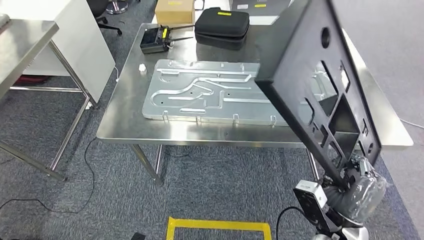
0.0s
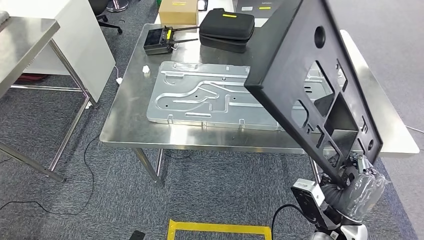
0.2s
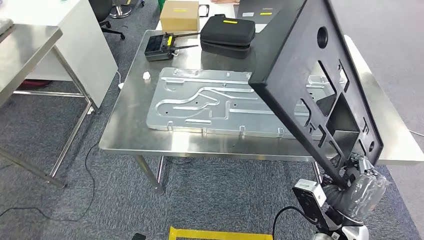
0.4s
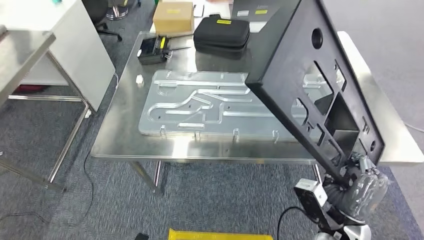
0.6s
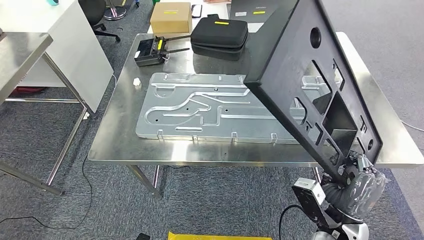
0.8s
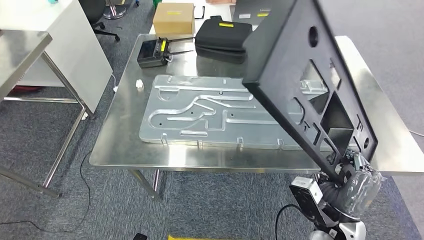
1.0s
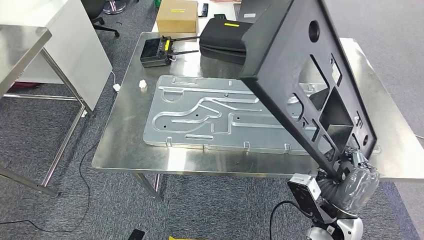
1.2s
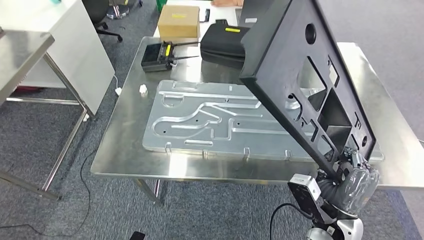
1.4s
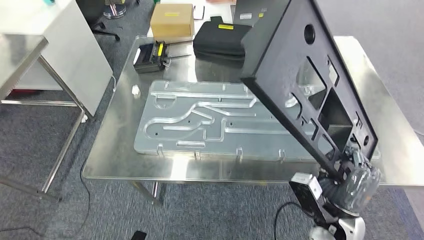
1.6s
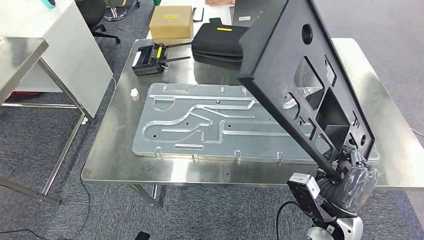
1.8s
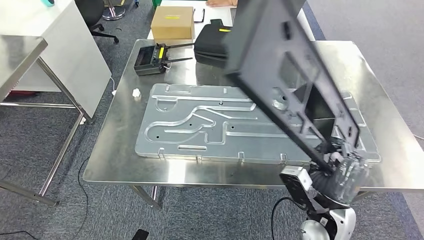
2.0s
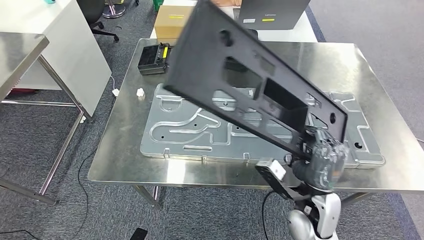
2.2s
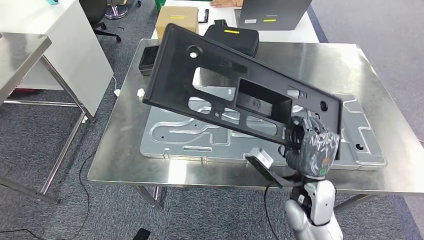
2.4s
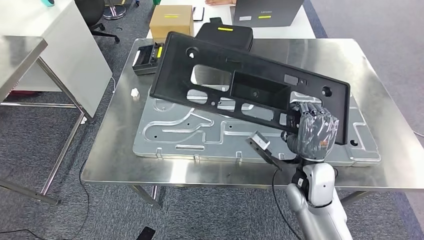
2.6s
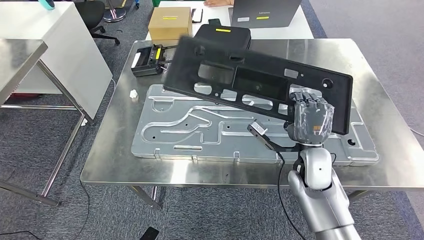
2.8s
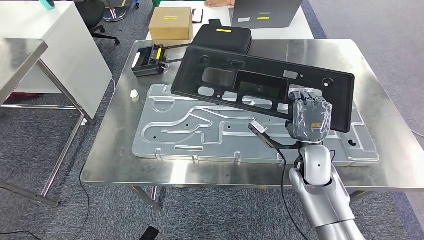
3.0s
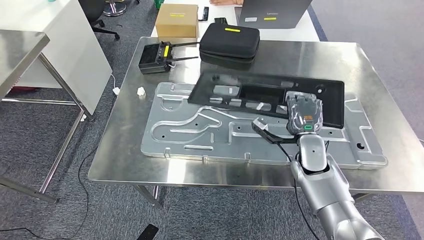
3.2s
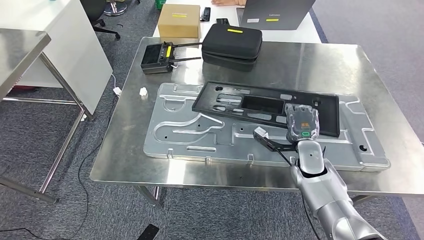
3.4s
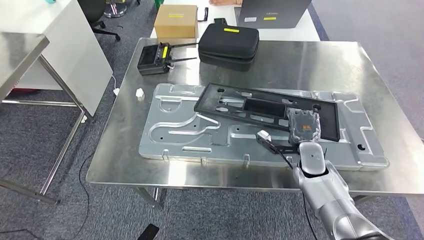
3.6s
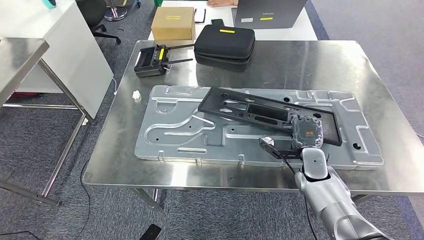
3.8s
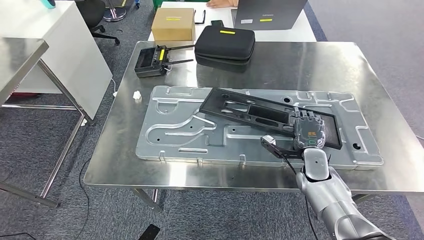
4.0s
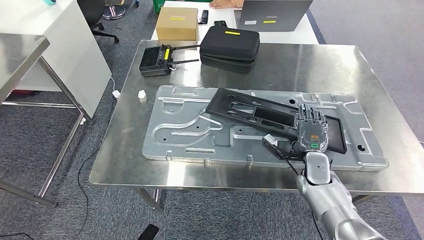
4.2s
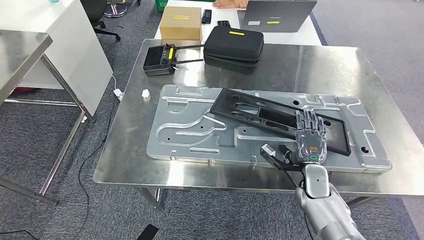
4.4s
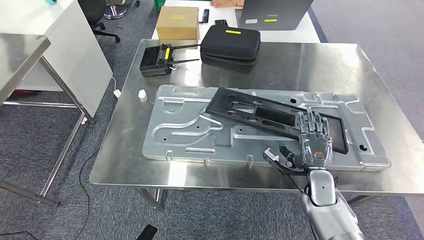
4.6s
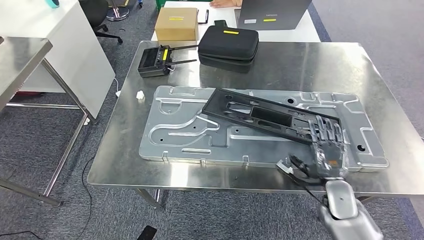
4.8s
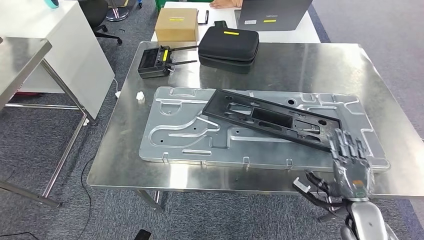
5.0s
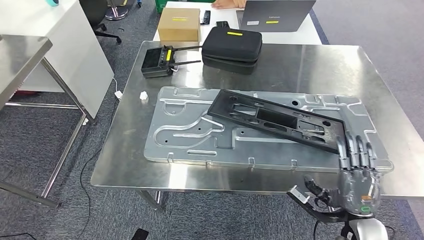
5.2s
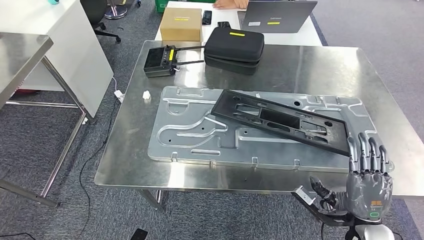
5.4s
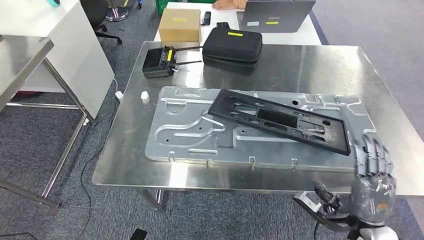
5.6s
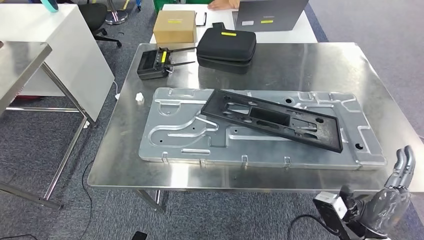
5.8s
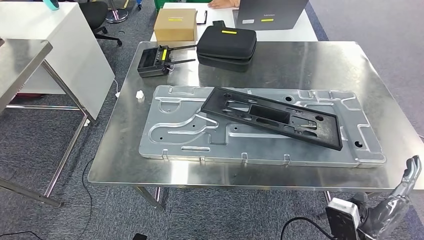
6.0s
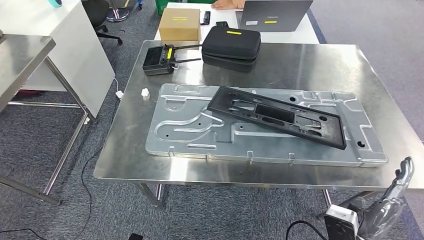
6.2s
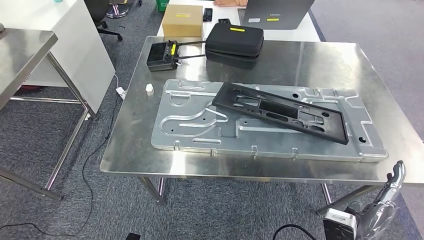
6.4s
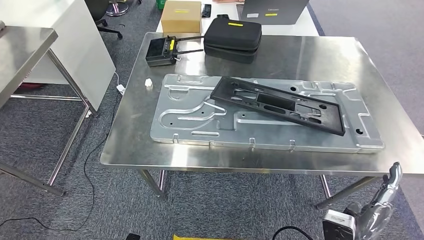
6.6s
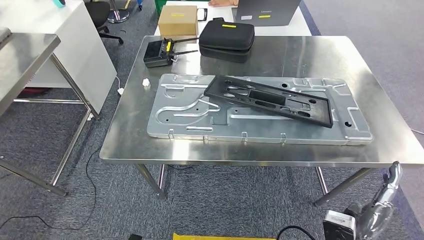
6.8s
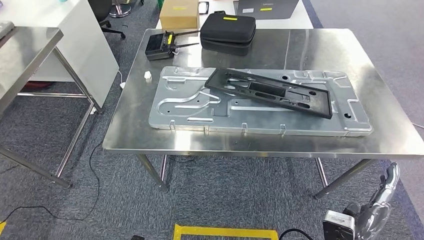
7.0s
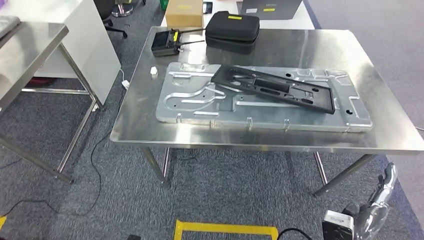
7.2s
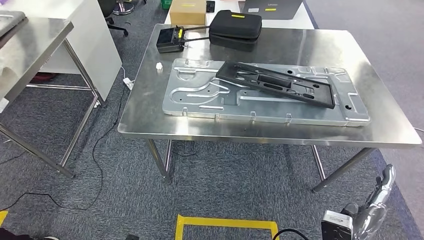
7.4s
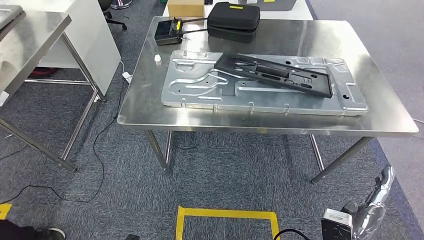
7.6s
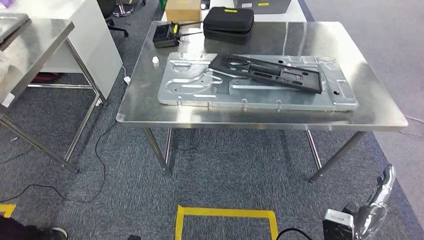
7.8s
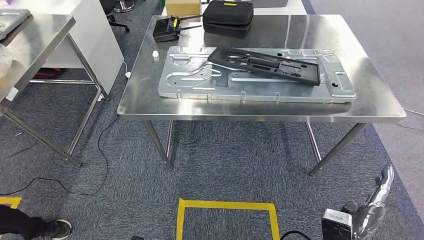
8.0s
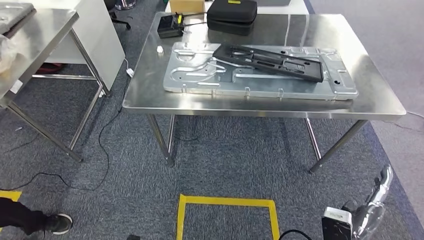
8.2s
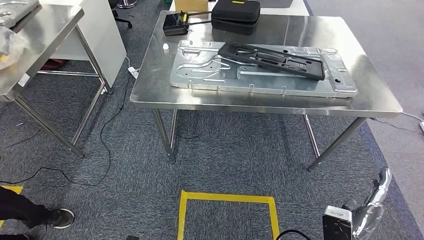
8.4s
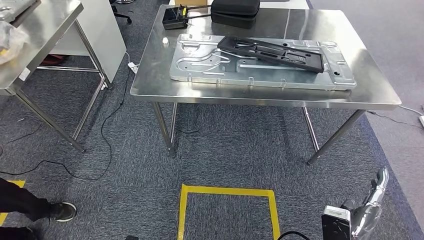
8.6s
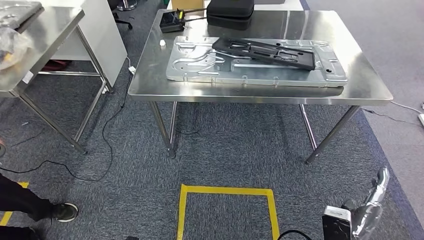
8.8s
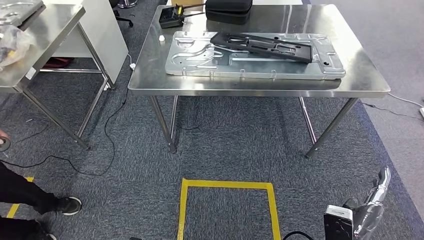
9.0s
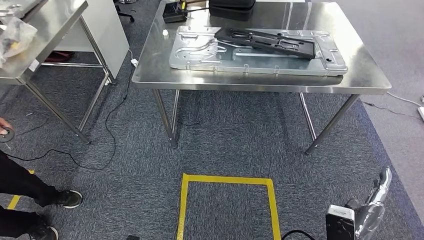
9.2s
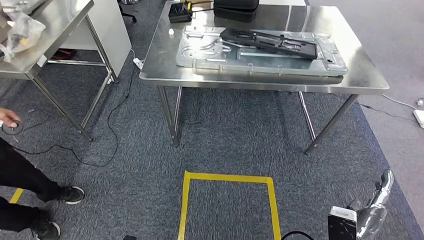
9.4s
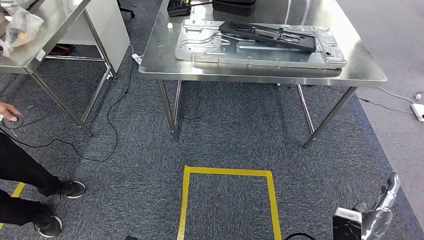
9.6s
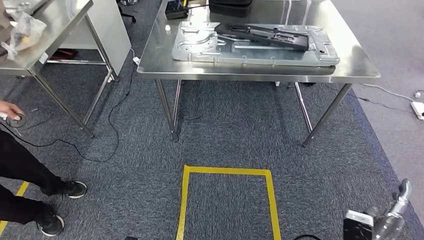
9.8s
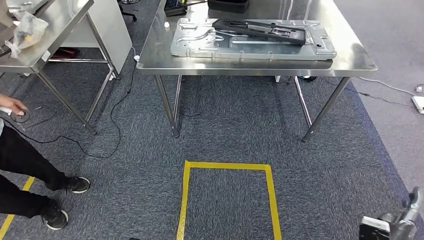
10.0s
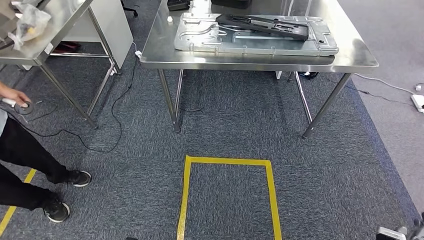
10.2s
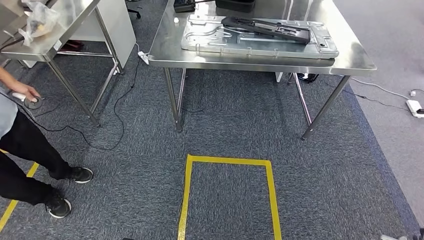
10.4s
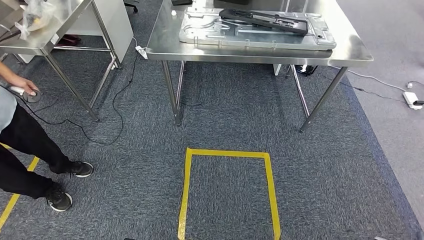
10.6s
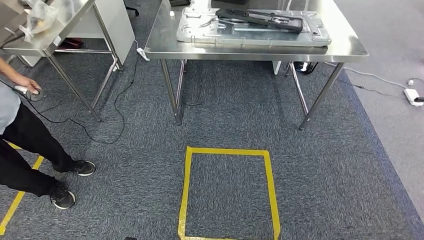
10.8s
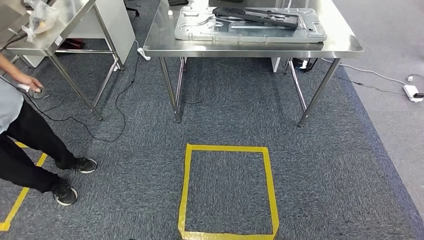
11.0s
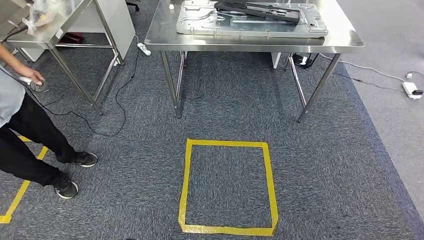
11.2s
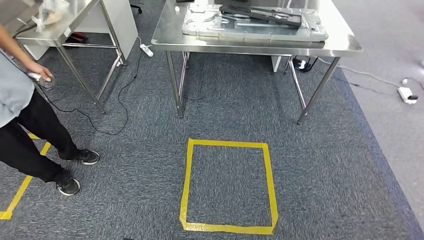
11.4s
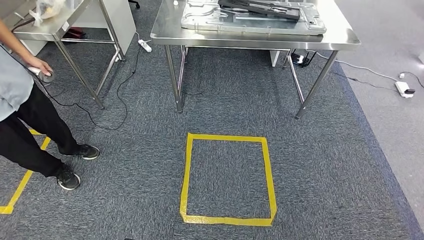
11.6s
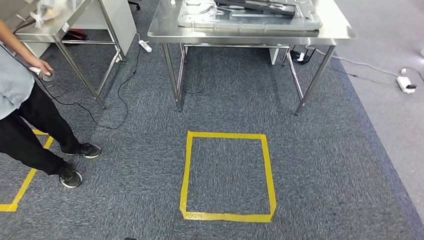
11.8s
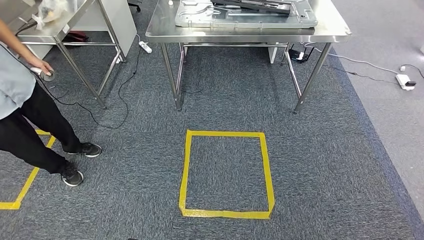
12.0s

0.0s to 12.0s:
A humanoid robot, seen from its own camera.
Step, 1.6s to 7.4s: Insert the large material into the corresponding slot on the workbench.

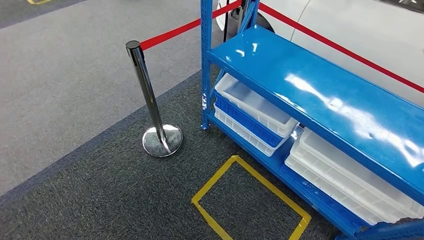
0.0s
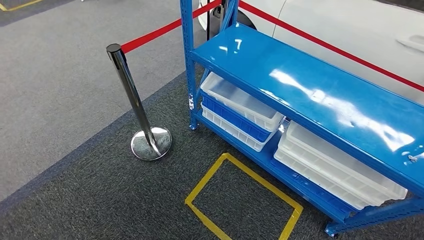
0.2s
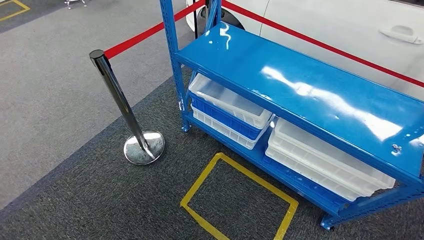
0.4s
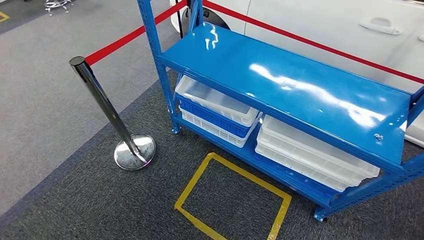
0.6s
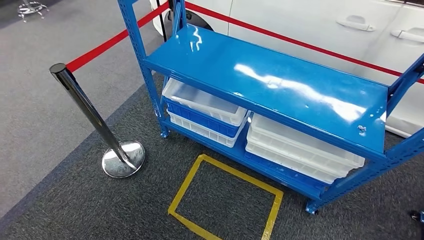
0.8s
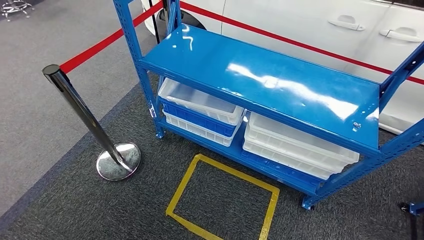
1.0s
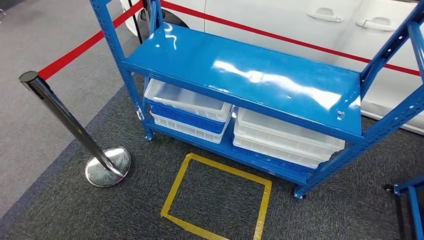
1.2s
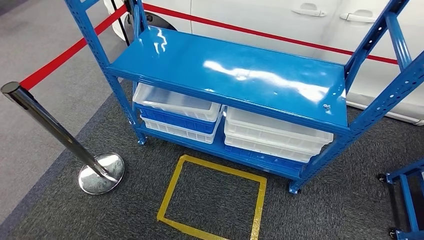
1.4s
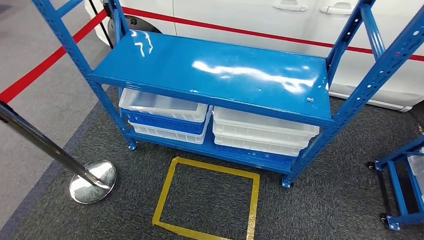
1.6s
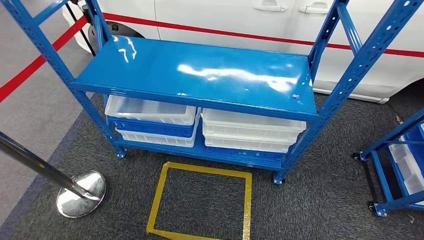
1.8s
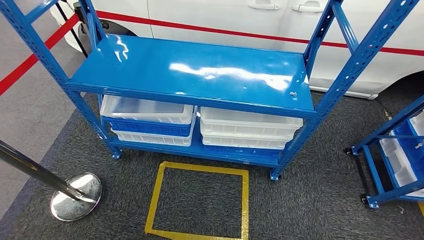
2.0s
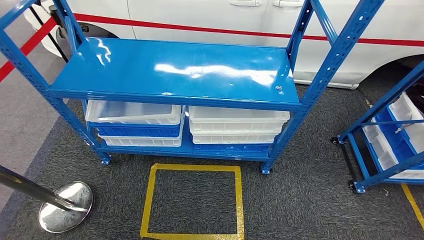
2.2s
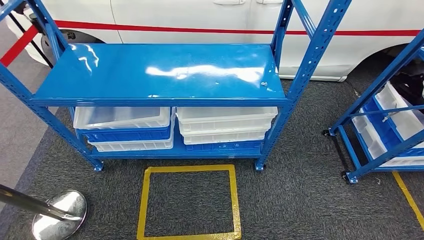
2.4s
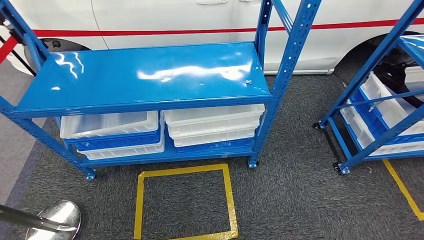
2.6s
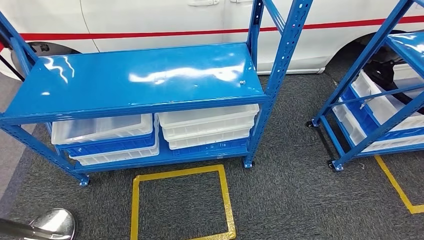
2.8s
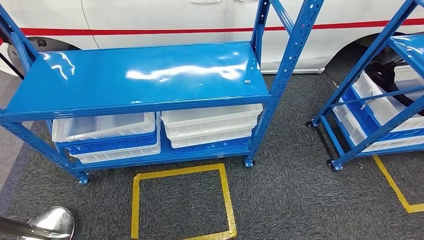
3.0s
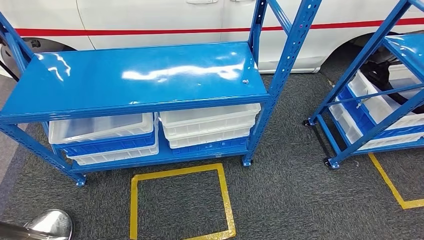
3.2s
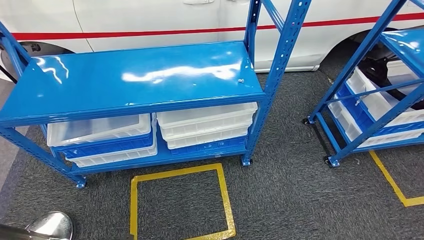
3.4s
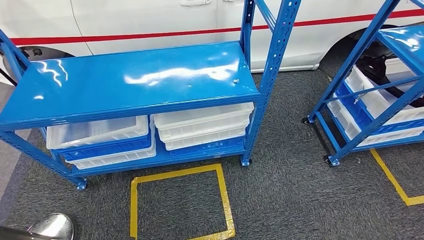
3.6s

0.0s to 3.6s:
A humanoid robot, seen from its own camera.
Step, 0.0s to 3.6s: Move to the initial position of the shelf.
